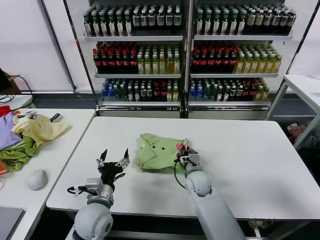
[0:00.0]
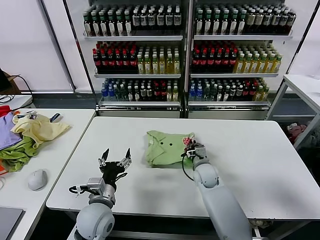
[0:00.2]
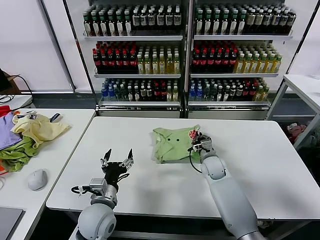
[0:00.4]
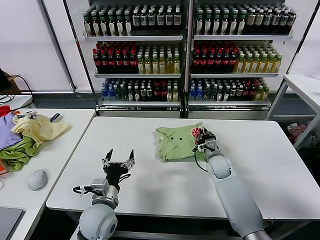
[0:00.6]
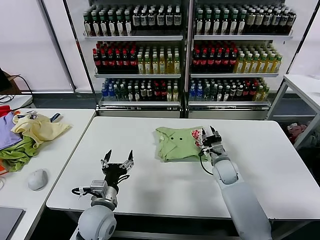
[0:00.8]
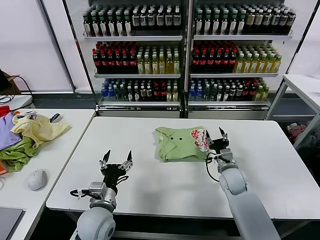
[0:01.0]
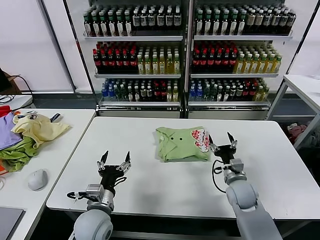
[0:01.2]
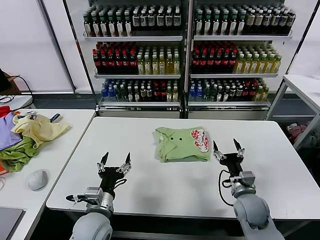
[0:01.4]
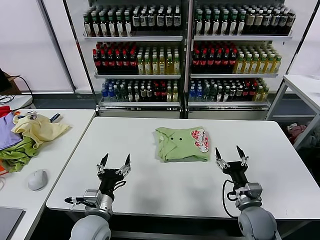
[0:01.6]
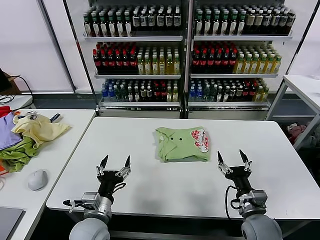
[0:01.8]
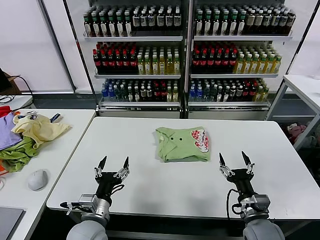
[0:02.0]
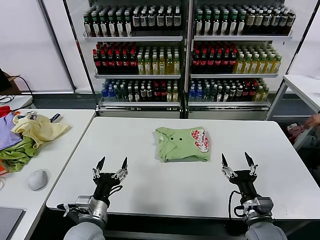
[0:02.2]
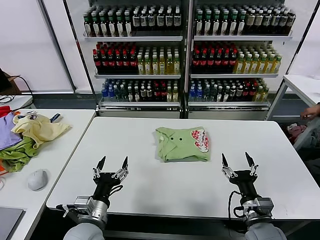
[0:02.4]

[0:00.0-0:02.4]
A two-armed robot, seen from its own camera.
Task of the whole recording: fold and organize the clothes.
0:00.0 to 0:01.2: The right gripper travels to the right by roughly 15 cm, and opens its fingers.
0:01.2 to 0:02.4: The right gripper heads backward, covering about 15 cm.
